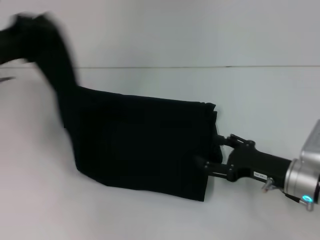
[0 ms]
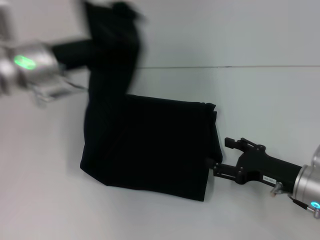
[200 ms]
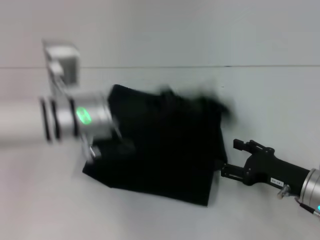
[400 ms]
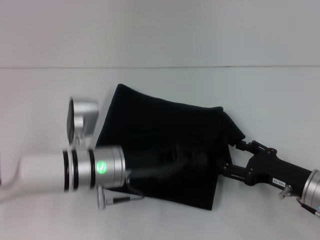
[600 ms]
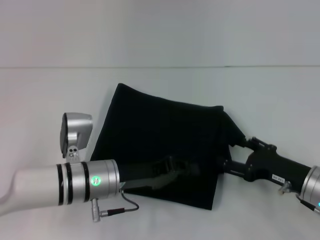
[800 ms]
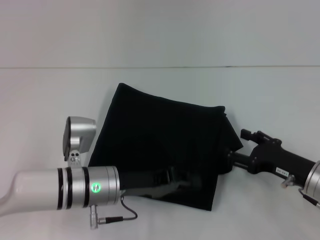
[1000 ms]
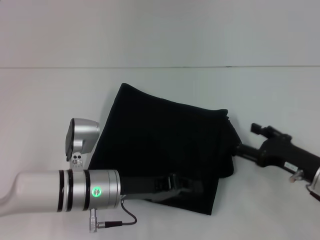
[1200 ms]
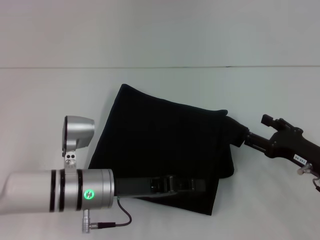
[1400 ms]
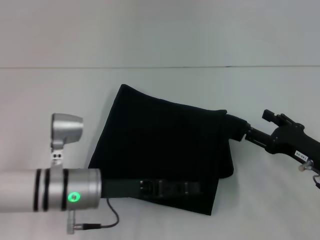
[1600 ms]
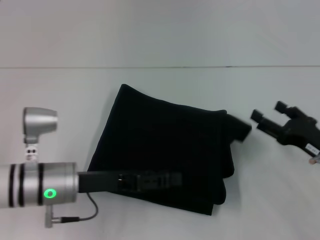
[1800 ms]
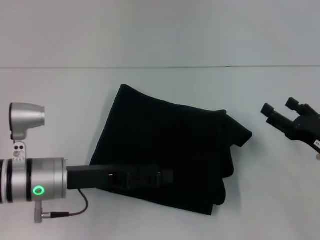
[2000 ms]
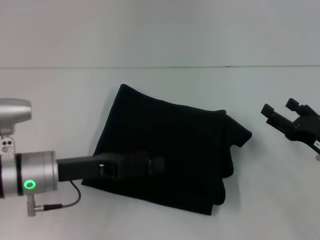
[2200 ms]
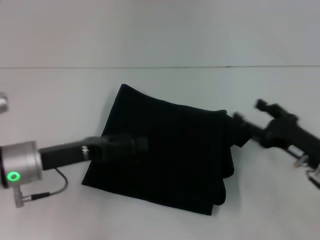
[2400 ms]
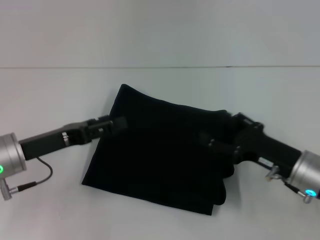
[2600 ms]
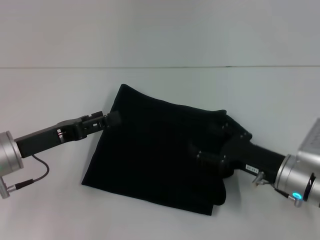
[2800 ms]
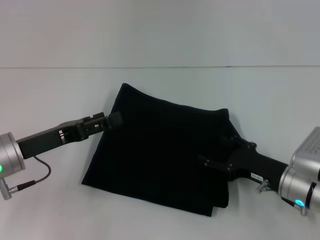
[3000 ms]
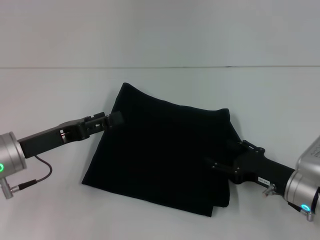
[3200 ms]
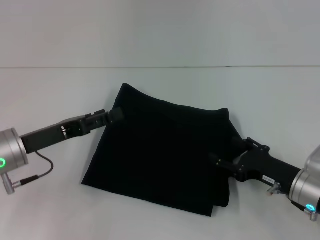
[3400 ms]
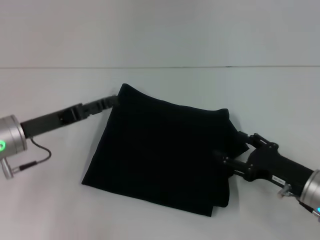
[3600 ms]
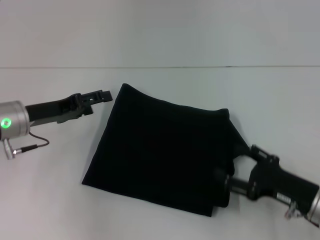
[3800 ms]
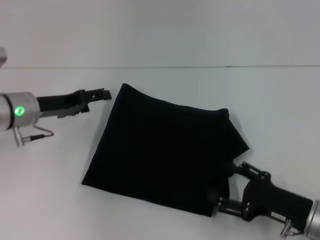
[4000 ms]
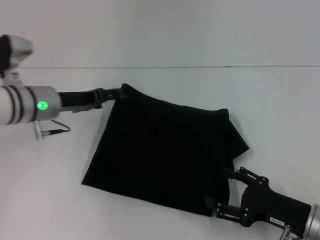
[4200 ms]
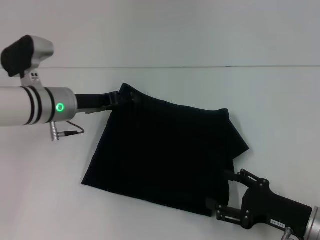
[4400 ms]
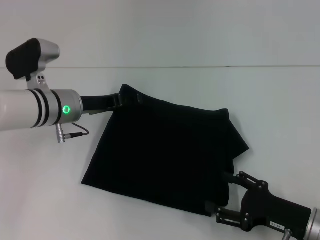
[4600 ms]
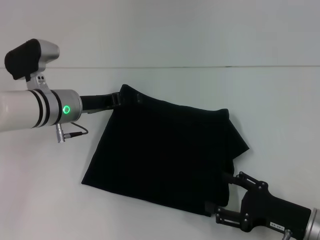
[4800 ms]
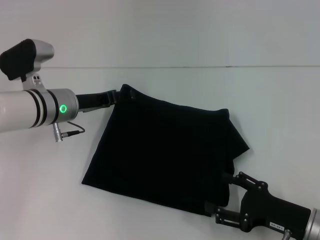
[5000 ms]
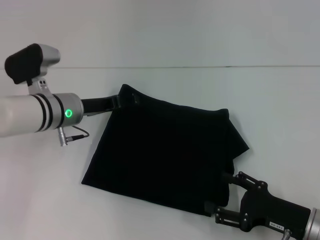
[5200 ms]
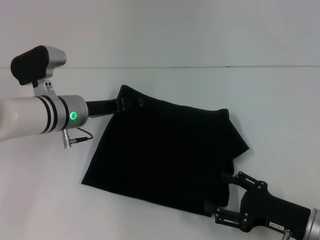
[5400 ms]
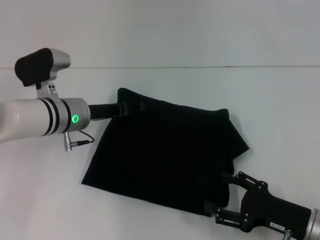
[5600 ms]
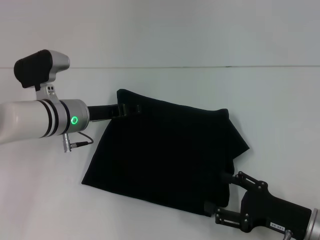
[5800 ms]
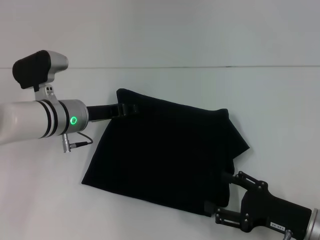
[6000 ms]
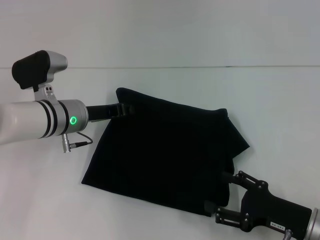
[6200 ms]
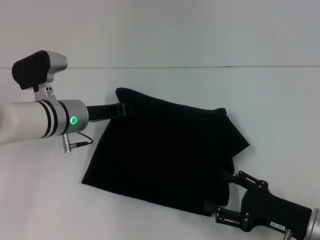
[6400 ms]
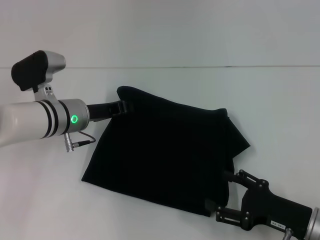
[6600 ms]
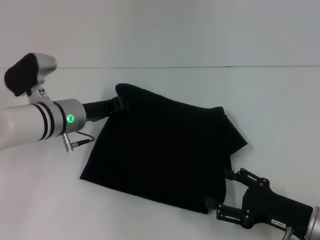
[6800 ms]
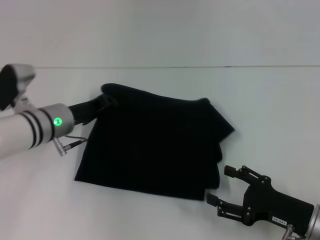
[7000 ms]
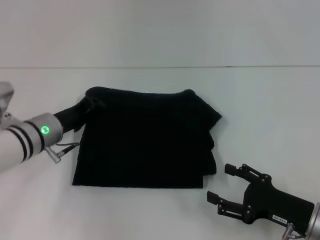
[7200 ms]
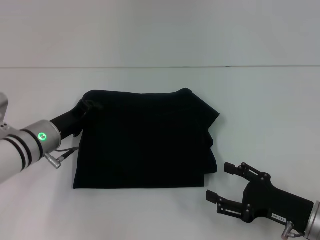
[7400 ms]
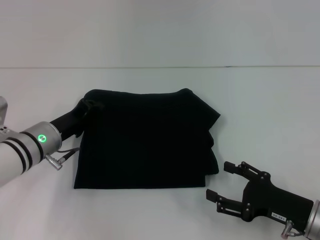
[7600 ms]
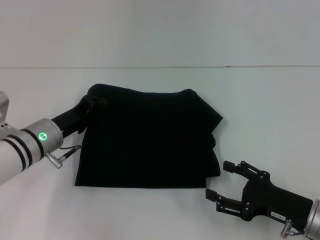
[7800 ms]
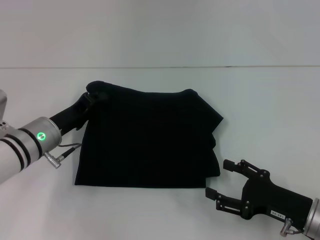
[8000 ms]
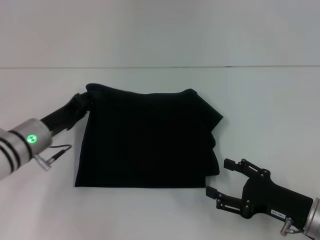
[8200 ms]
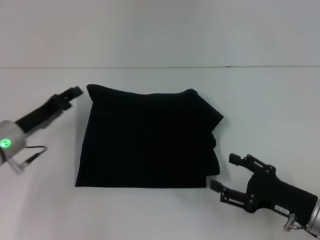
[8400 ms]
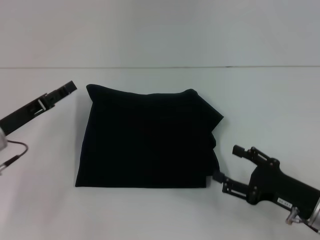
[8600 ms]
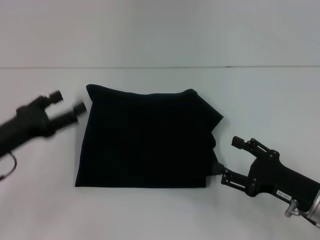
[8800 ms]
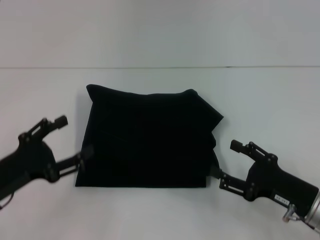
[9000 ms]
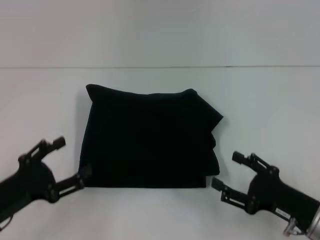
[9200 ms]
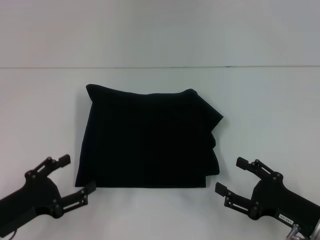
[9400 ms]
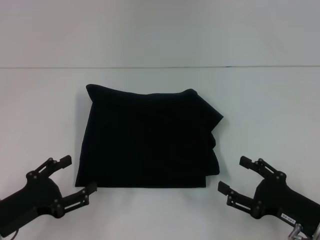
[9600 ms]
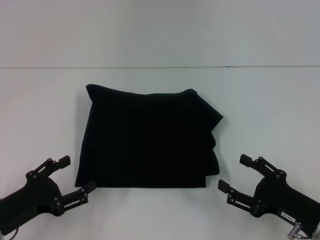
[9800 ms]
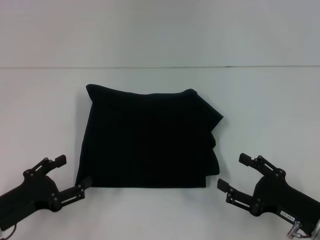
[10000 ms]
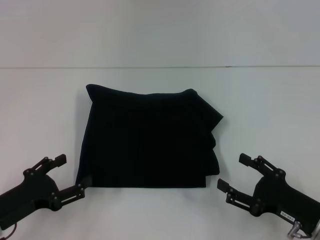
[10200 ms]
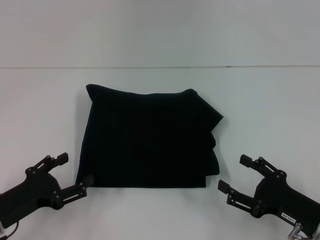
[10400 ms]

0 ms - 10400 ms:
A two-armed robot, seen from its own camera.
0 ms - 1400 ms: The left gripper goes approximately 25 cm to the right, downward and backward. The right gripper moves about 5 cm.
1400 ms - 3000 ms: The left gripper shifts about 10 cm to the left, and opens. Meanwhile the right gripper is displaced to the left by roughly 5 cm.
3000 ms - 4400 ms: The right gripper is displaced backward by about 5 cm. Meanwhile the left gripper moves forward and to the right, approximately 10 cm.
4400 ms - 6000 ms: The grippers make only small movements.
6000 ms - 7400 ms: The left gripper shifts by approximately 5 cm, and closes up.
7400 ms - 9000 ms: The left gripper goes about 15 cm backward and to the left, and opens.
9000 ms - 10400 ms: The grippers move only a little.

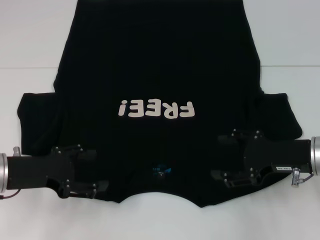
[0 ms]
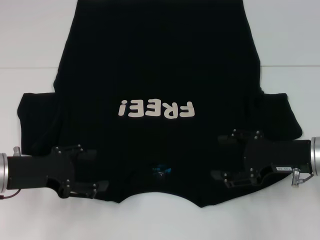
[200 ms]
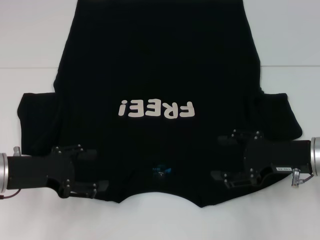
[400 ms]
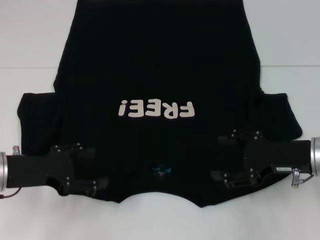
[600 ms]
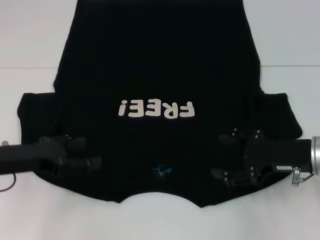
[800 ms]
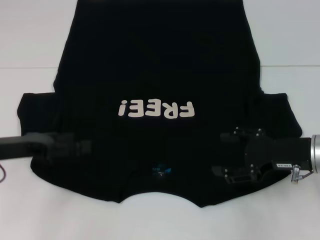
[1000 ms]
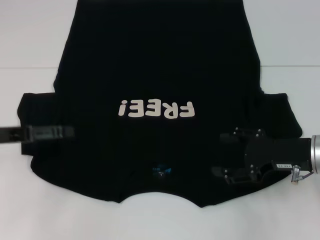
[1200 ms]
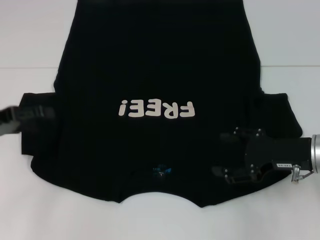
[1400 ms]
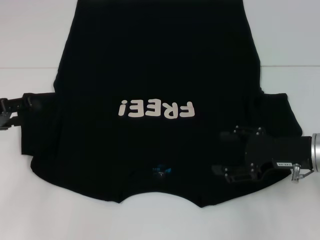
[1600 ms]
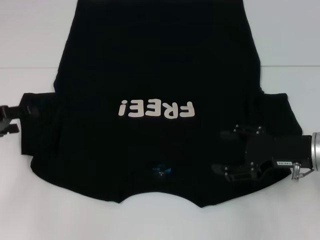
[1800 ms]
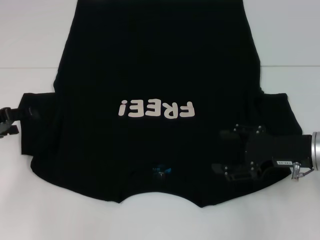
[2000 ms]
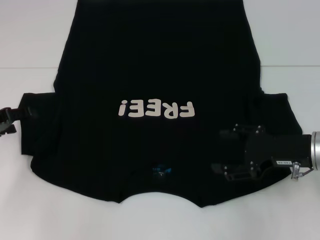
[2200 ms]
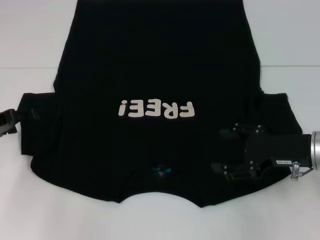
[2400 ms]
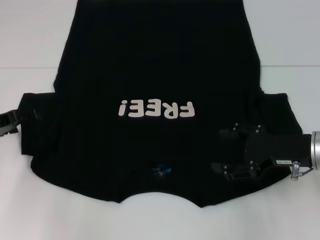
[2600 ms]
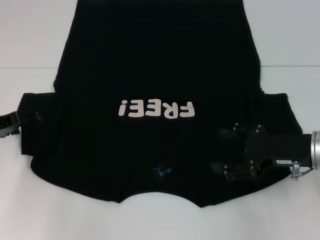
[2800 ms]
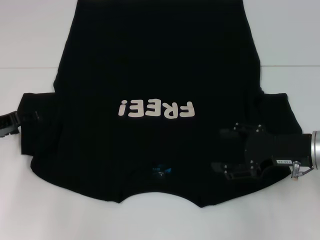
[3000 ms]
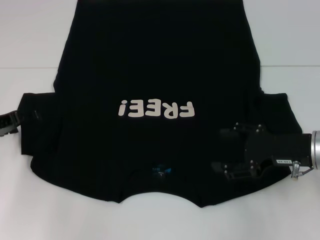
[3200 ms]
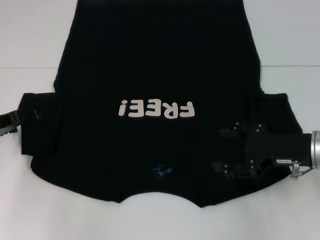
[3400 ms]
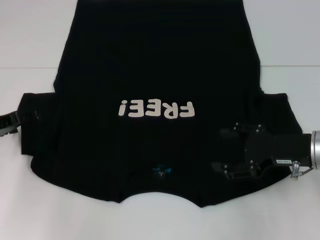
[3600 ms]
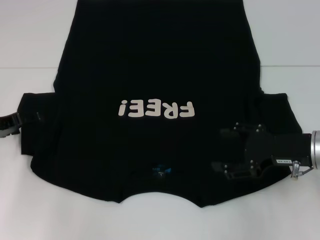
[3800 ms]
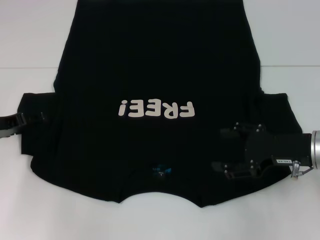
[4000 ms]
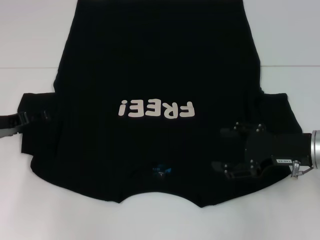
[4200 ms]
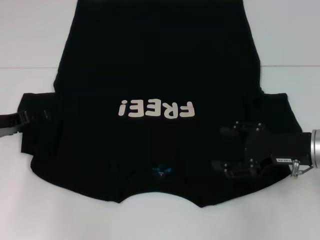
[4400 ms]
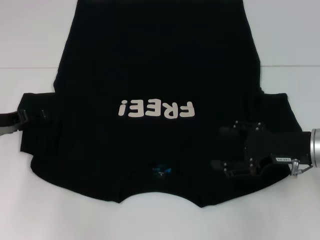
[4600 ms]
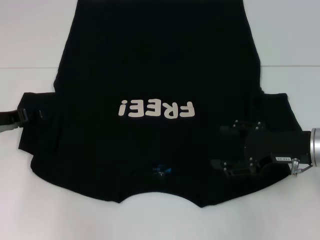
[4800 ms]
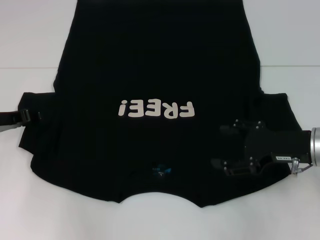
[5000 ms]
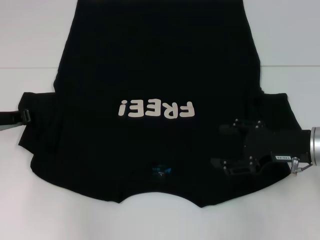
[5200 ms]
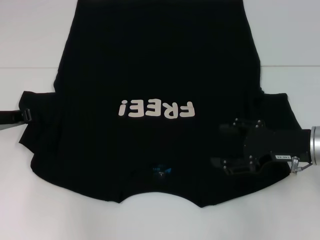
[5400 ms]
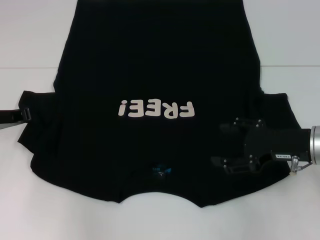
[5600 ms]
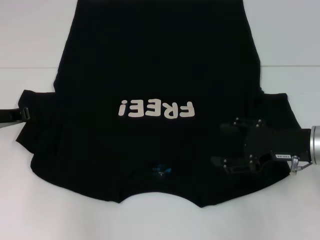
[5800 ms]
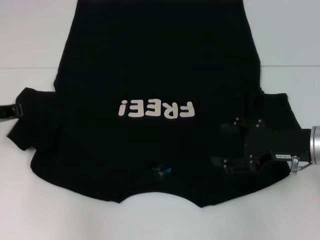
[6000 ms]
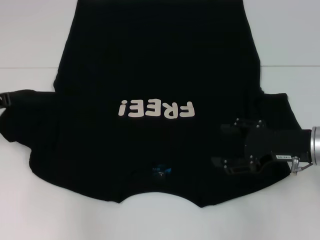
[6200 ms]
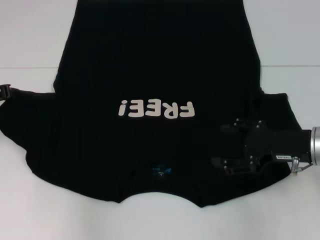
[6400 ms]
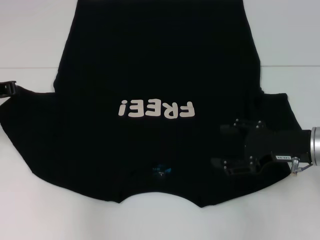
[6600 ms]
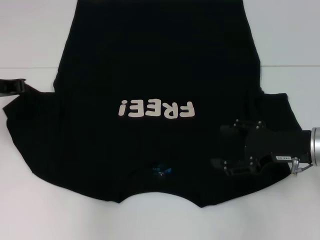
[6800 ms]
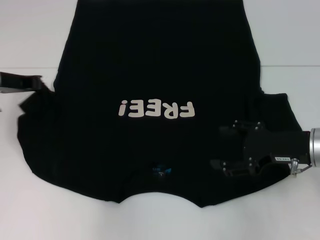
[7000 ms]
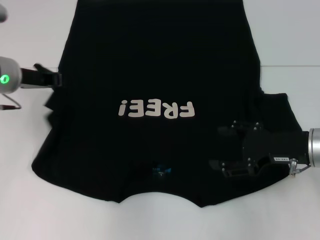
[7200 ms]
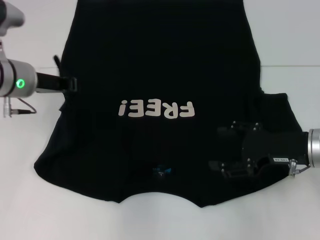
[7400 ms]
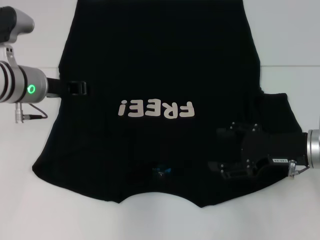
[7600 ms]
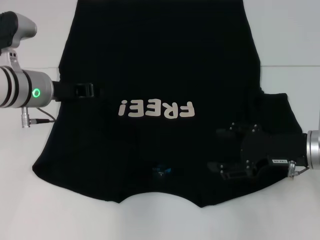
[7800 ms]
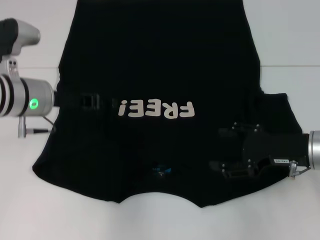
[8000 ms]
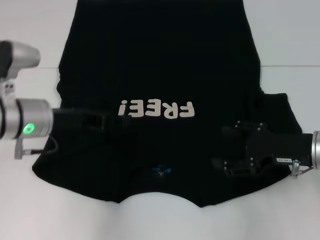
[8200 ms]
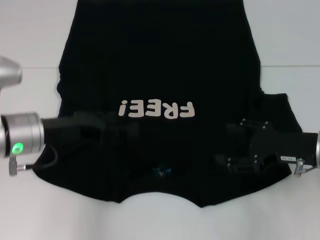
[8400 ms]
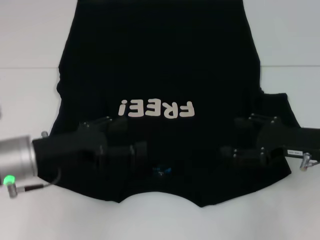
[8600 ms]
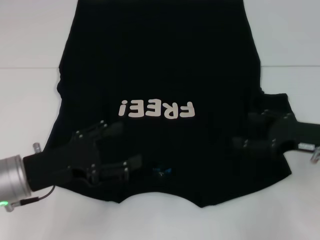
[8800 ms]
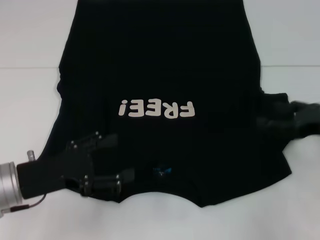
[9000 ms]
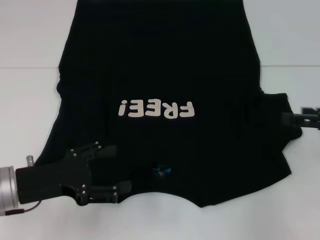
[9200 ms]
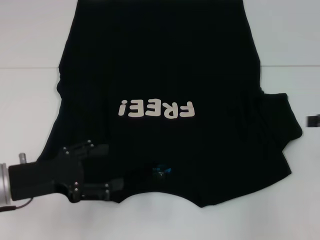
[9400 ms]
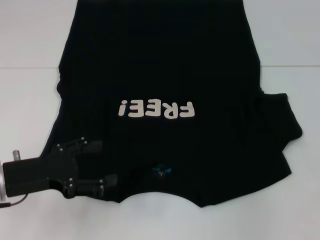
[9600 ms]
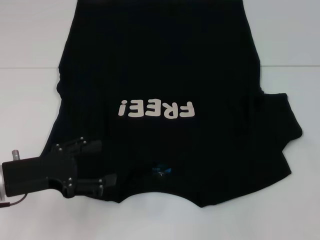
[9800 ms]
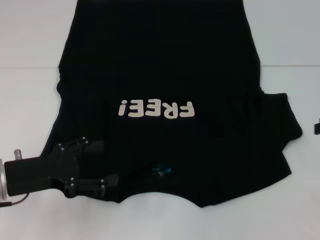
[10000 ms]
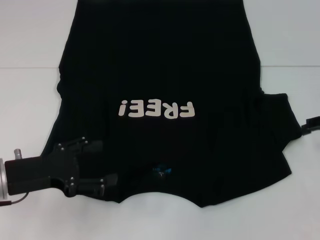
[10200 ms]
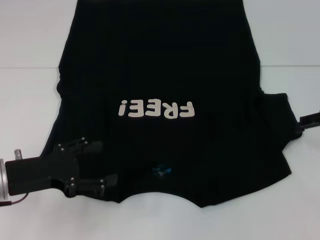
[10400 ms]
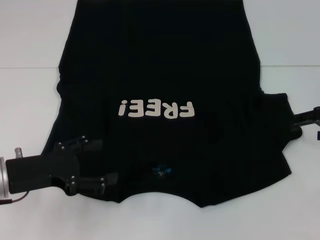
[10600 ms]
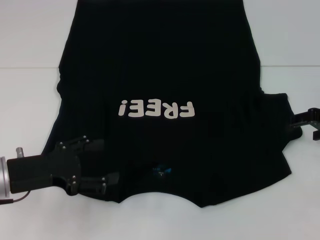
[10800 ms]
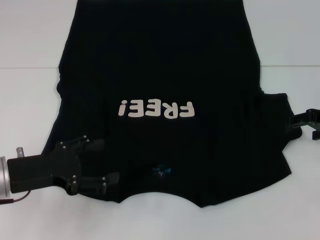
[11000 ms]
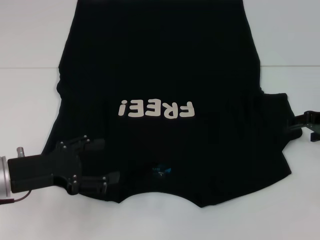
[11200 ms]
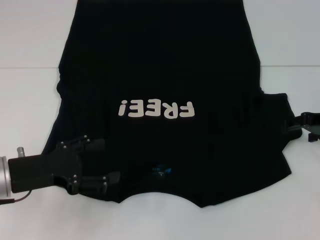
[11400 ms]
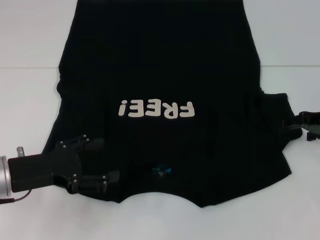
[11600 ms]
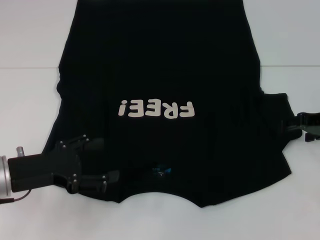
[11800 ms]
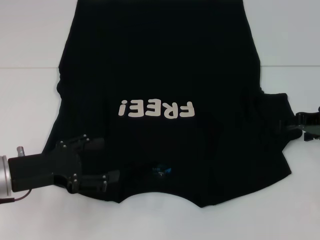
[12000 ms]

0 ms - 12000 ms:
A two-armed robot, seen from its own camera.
Step, 0 ms - 8000 ms: Fold the bottom left sleeve with your left hand.
0 ms - 1600 ms: The left gripper shifts about 10 cm to the left.
1600 ms - 3000 ms: The left gripper ends up approximately 5 cm from where it was.
3000 ms - 4400 ms: Both grippers stay about where they are.
4400 ms - 6000 ms: The left gripper closes its fingers.
6000 ms - 7600 ms: The left gripper shifts roughly 10 cm to the right.
7600 ms - 9000 ms: The right gripper heads to the right, covering some 5 cm; the left gripper goes about 15 cm backward and downward, and opens.
9000 ms - 10400 ms: The right gripper goes roughly 5 cm forward.
10400 ms - 12000 ms: The grippers move only a little.
